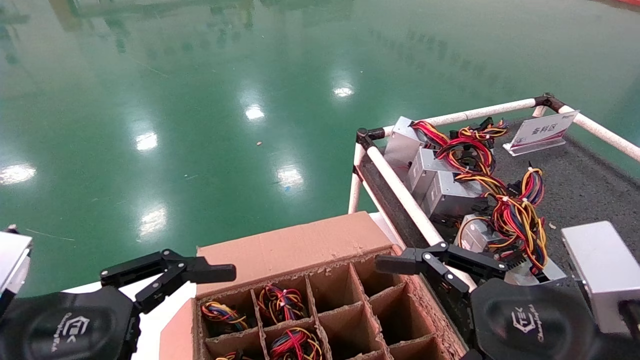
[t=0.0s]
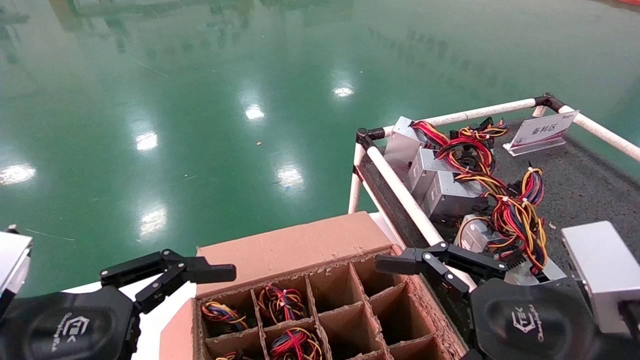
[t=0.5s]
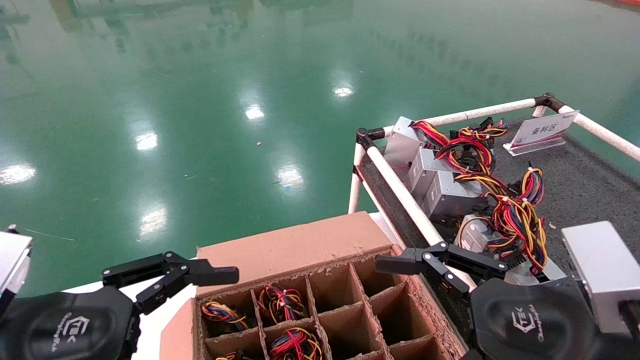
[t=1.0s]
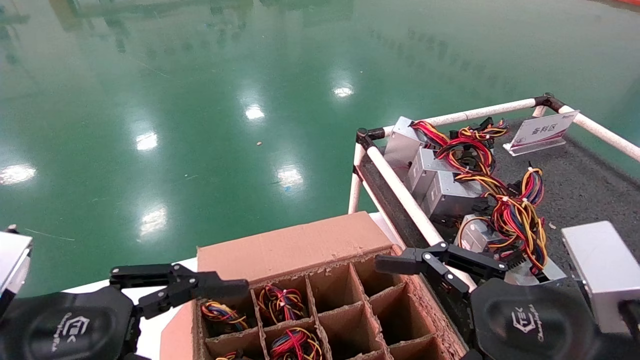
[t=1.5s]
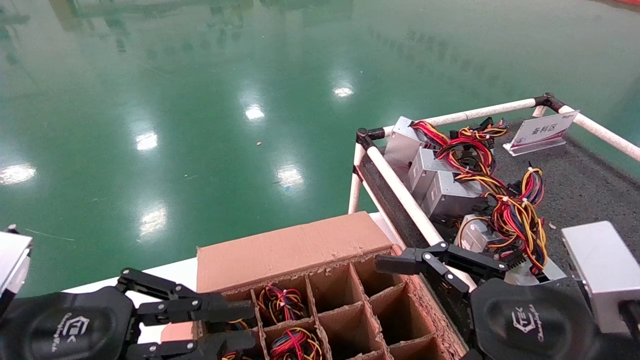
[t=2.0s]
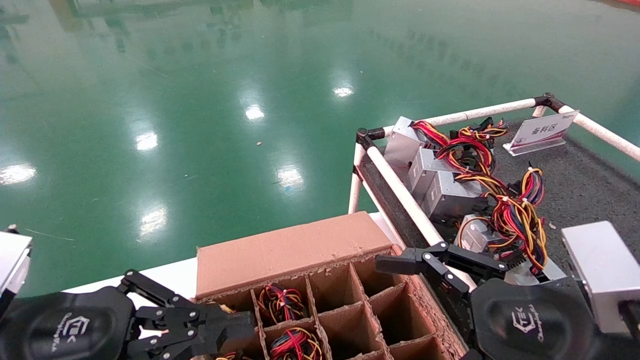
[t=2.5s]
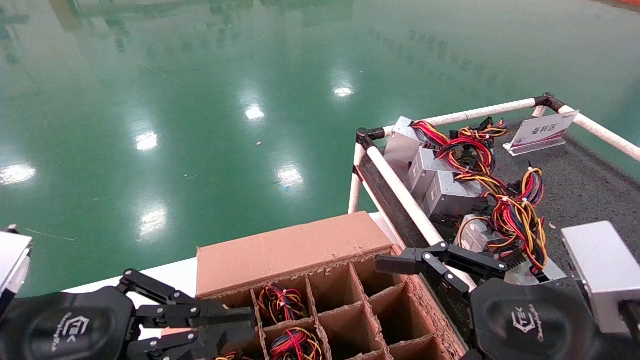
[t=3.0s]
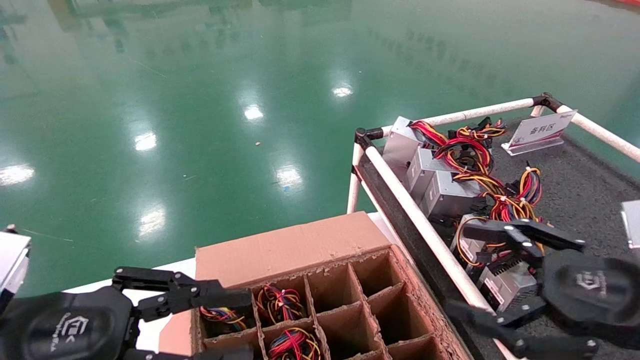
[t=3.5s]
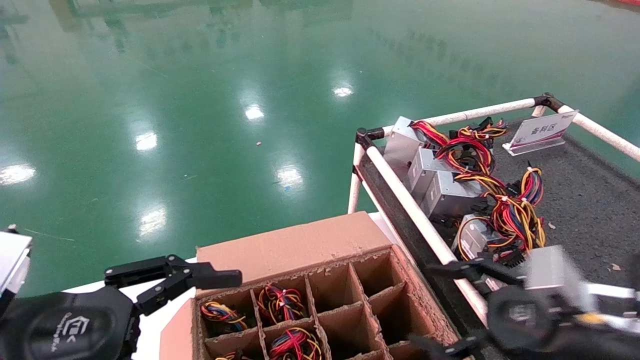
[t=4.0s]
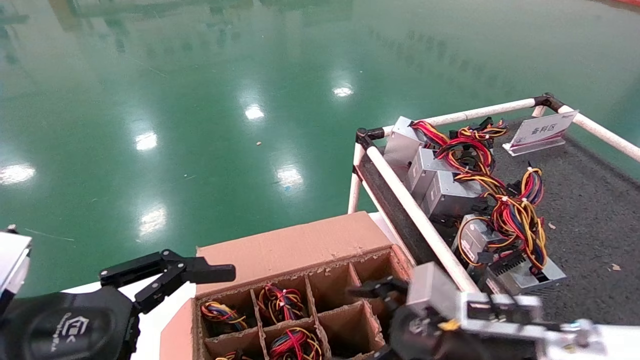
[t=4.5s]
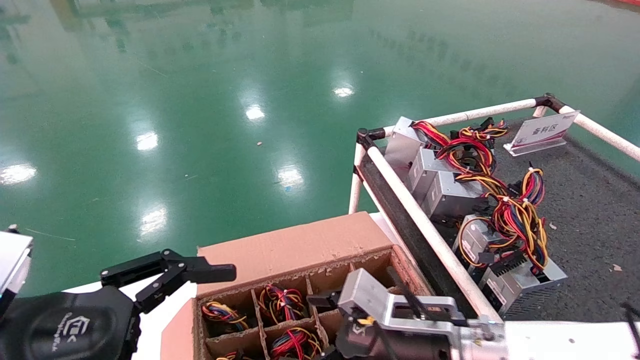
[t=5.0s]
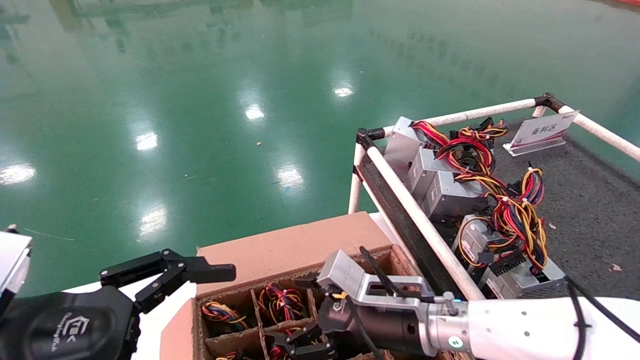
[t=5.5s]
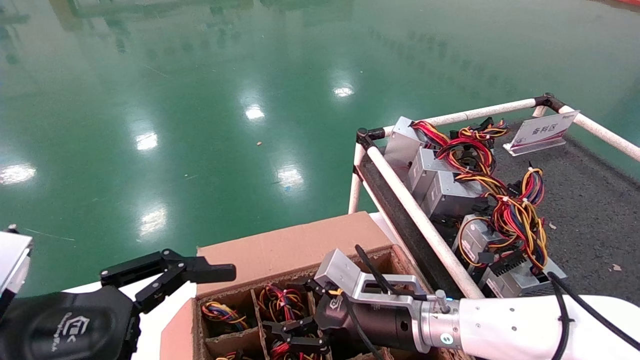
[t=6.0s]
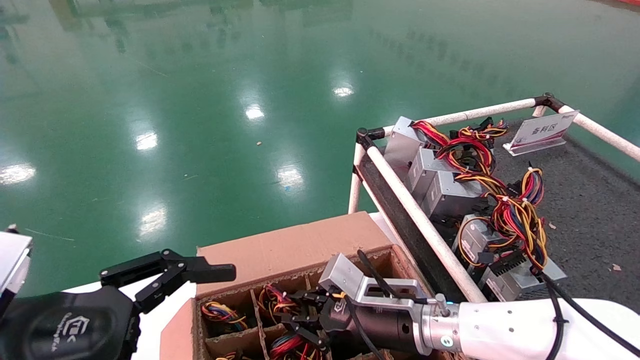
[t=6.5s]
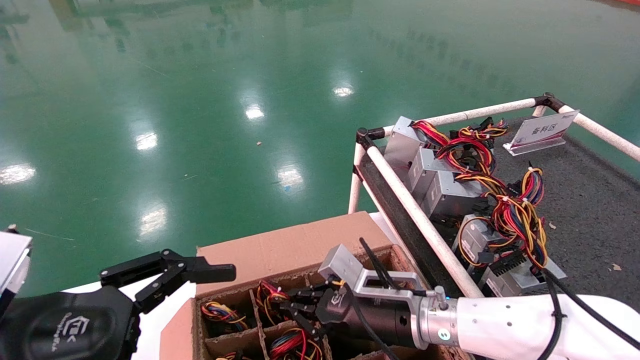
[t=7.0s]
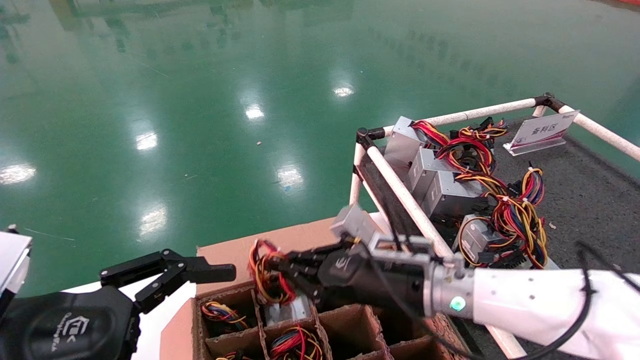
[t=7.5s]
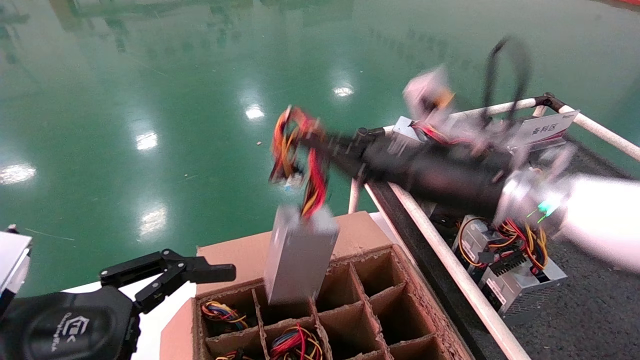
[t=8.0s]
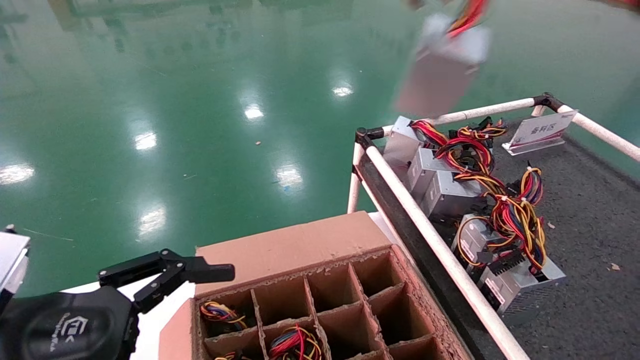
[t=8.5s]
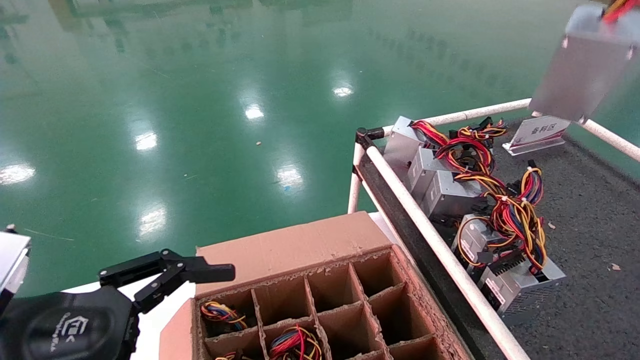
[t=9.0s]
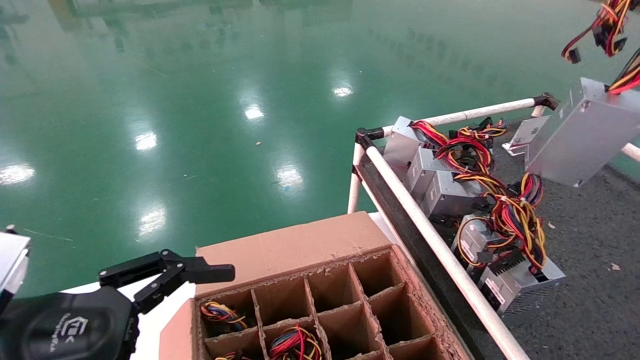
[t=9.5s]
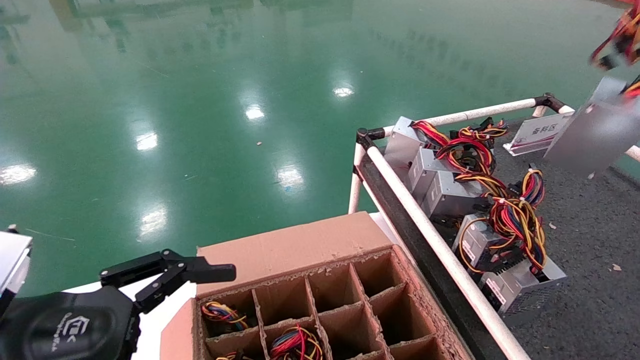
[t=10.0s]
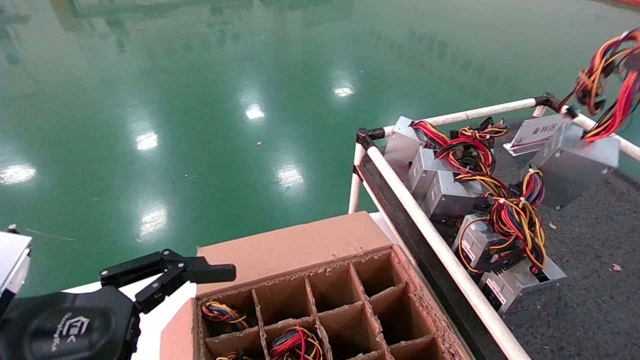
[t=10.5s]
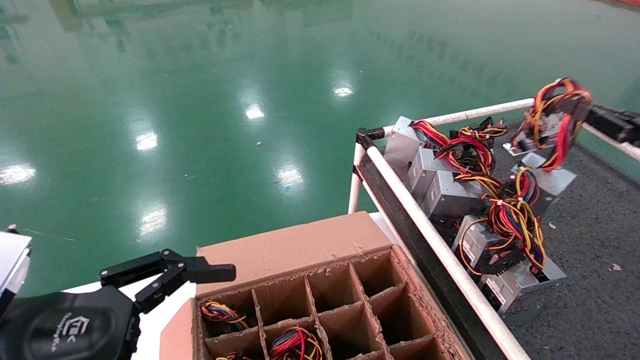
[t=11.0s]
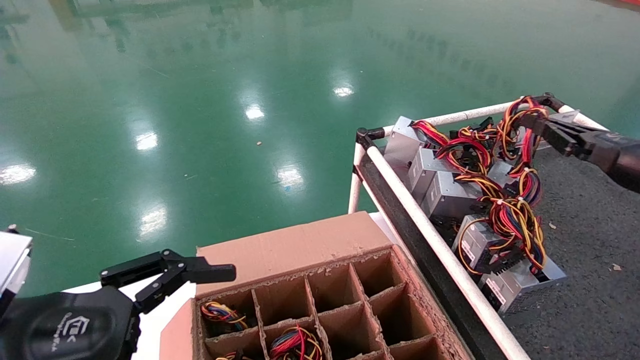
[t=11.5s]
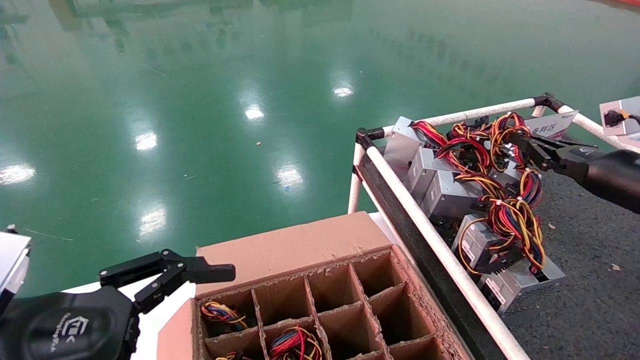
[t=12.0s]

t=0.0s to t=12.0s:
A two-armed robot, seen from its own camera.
Step, t=1.0s to t=6.5s: Grab and lift the power supply from the large box.
t=0.0s to t=2.0s: The left gripper closes its fingers.
t=2.0s to t=4.0s: The right gripper goes approximately 5 cm forward. Meanwhile the left gripper opens up.
t=4.0s to t=6.0s: The right gripper shifts roughly 20 cm to the left and forward.
t=6.0s to t=8.0s: The right gripper travels upward by about 20 cm, and closes up.
t=8.0s to t=10.0s: The right gripper moves to the right, approximately 30 cm.
t=10.0s to t=12.0s: The right gripper moves forward, downward and to the left, some 20 cm.

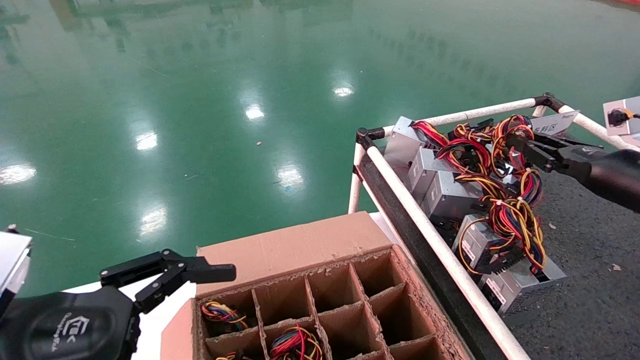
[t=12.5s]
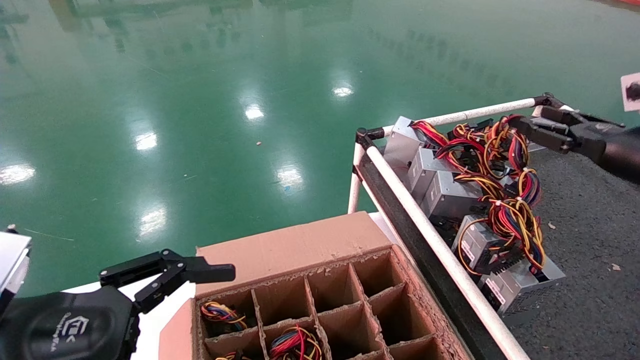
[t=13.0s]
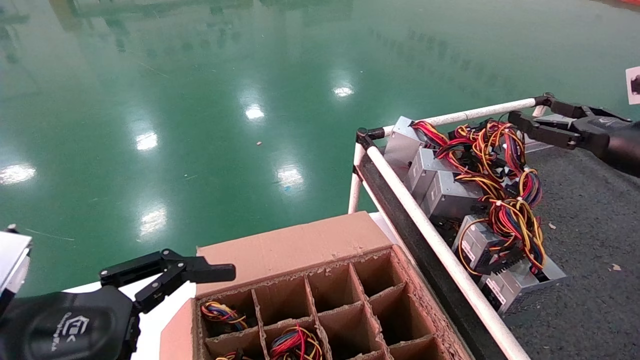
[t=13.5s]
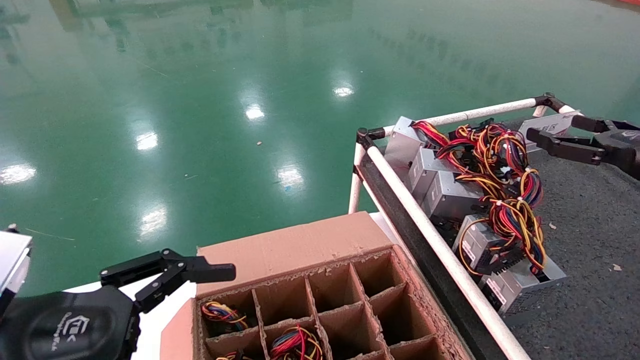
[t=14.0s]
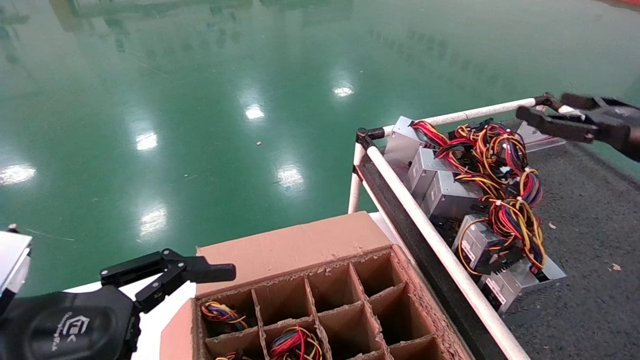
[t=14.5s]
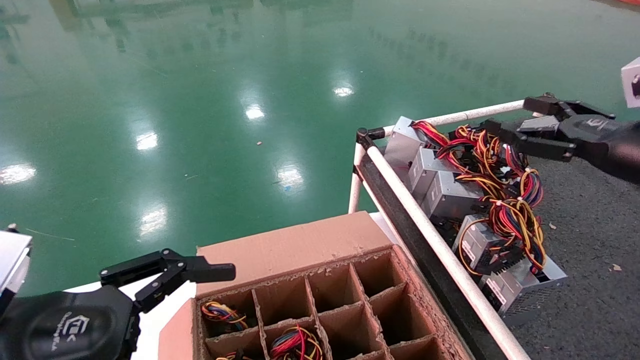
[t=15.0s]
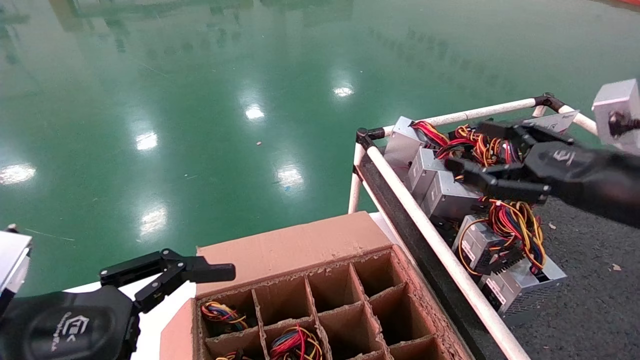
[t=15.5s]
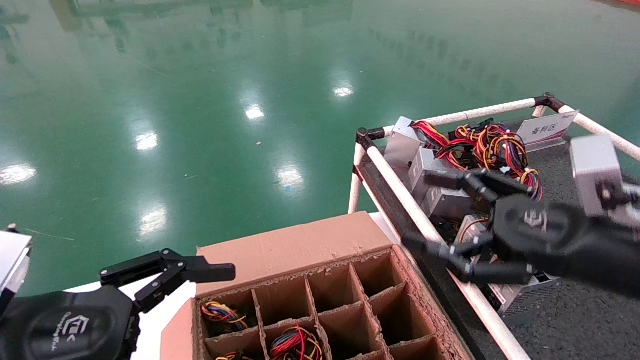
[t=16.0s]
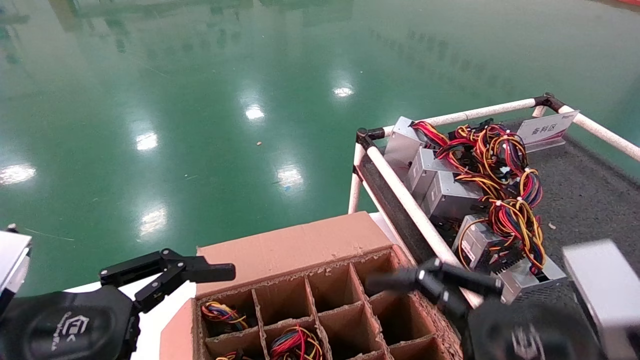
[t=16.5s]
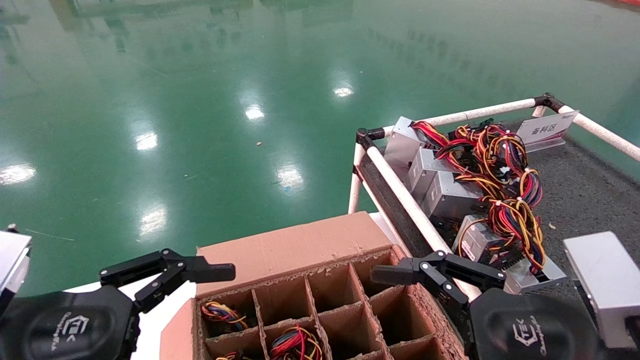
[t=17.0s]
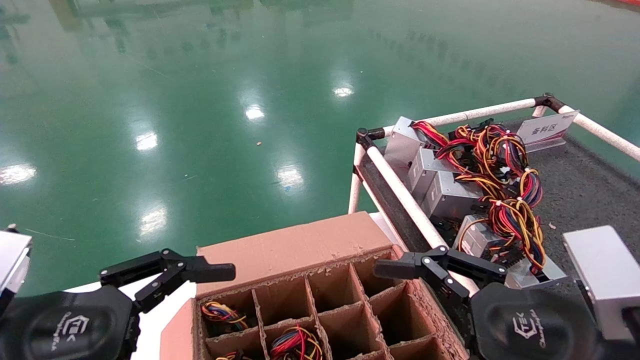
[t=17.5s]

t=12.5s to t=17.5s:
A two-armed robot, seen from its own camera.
t=12.5s to t=15.0s: The right gripper shifts some 5 cm backward, and opens up.
t=15.0s to t=17.5s: The right gripper travels to the left, backward and downward by about 25 cm.
